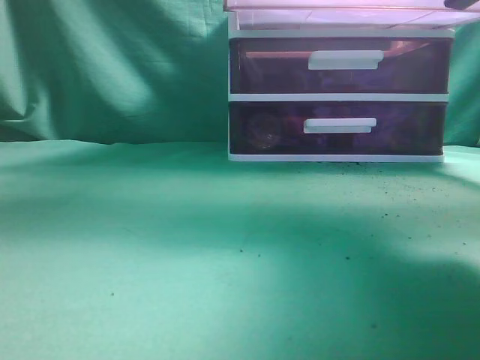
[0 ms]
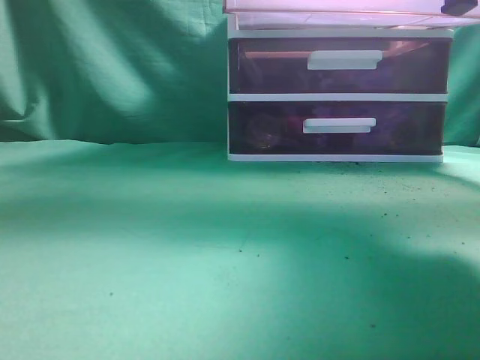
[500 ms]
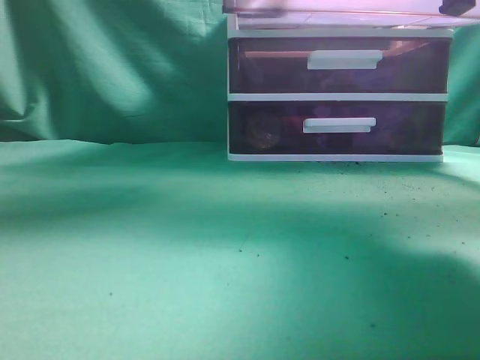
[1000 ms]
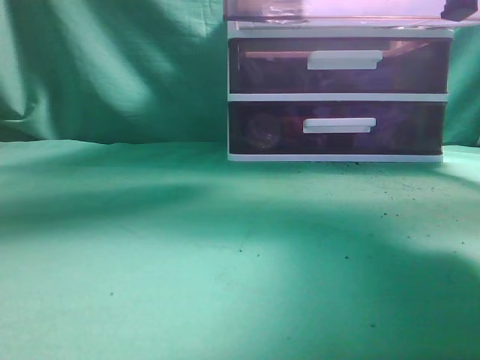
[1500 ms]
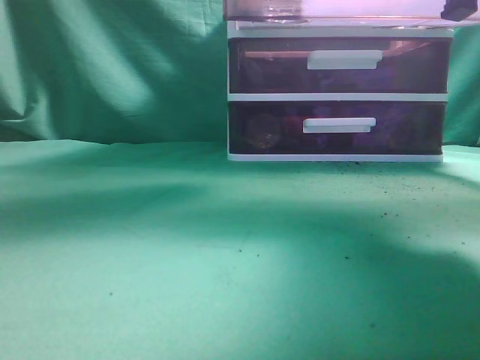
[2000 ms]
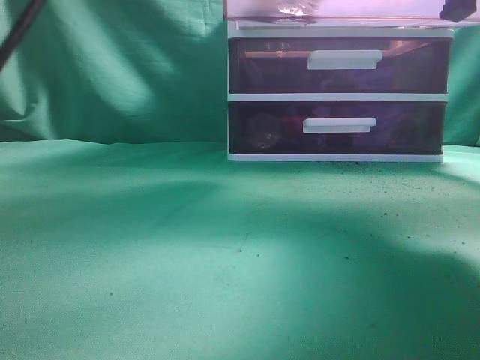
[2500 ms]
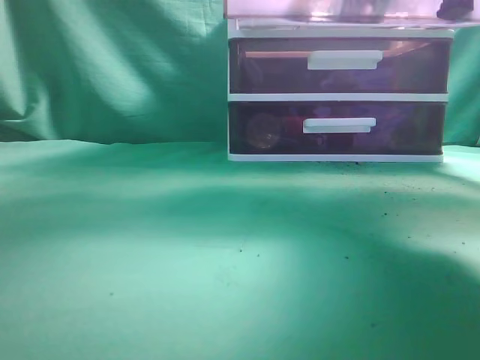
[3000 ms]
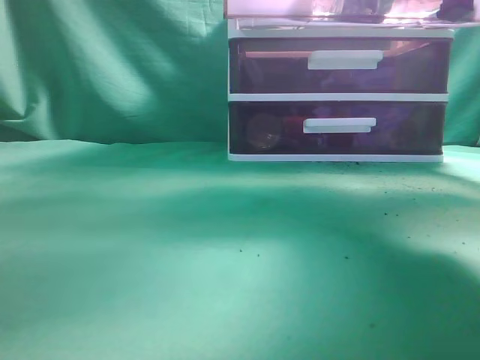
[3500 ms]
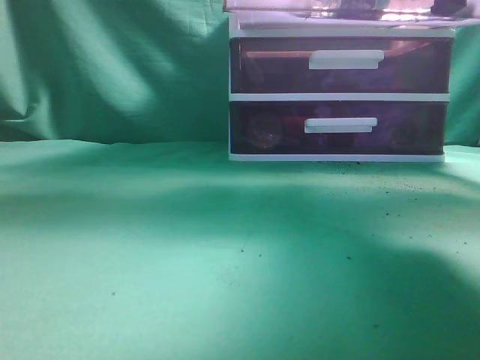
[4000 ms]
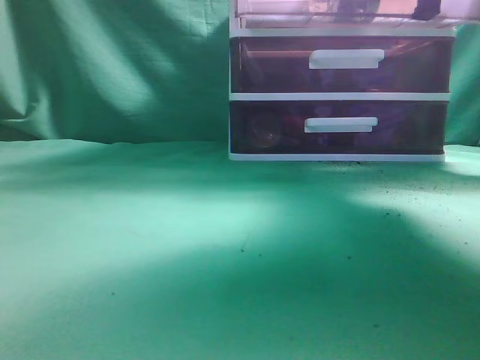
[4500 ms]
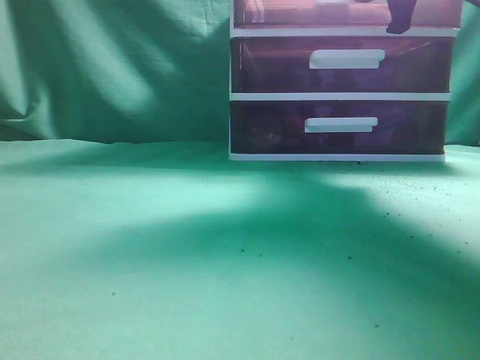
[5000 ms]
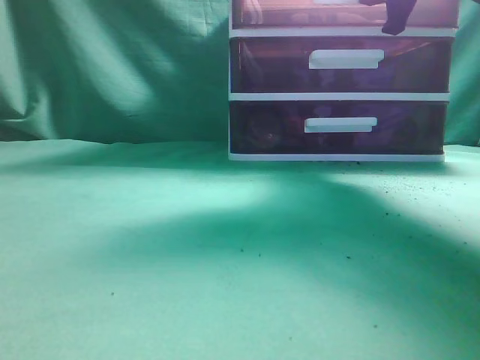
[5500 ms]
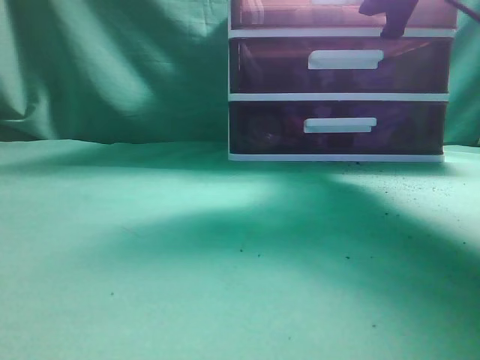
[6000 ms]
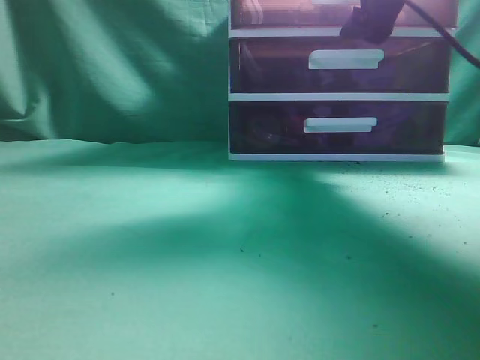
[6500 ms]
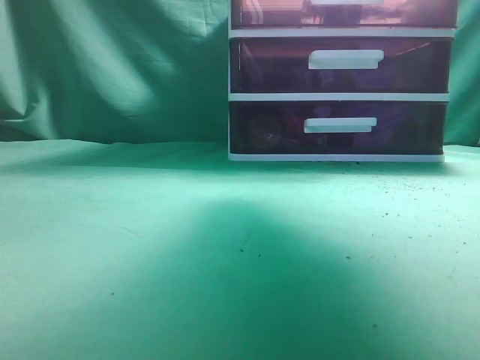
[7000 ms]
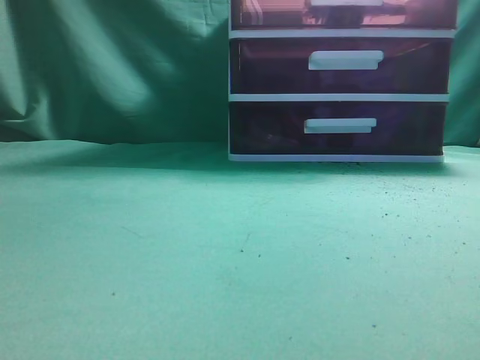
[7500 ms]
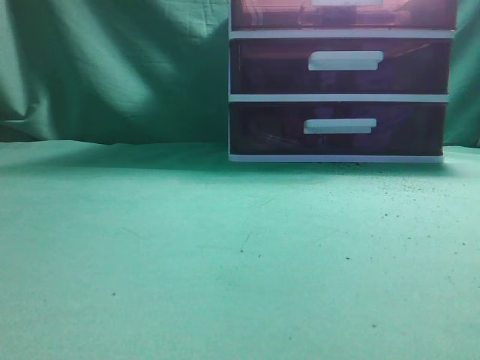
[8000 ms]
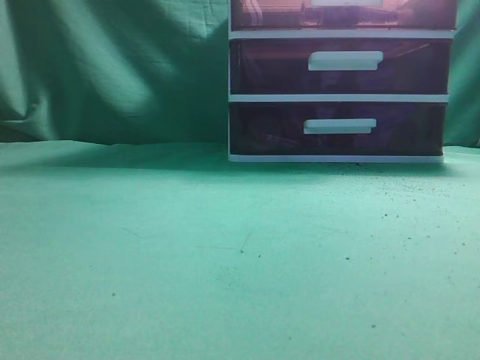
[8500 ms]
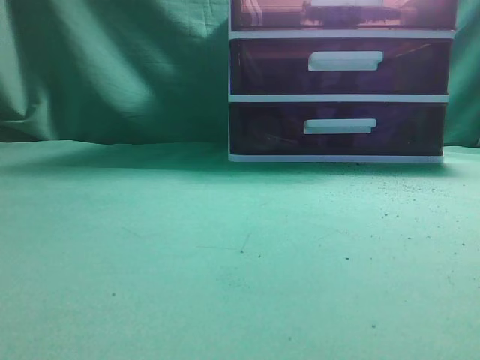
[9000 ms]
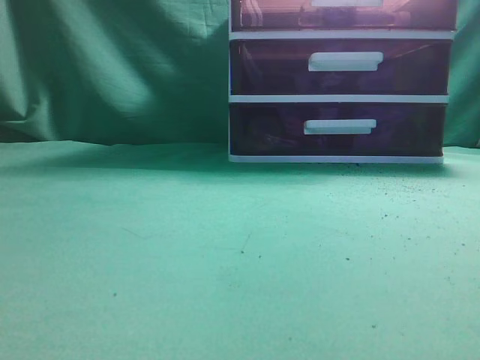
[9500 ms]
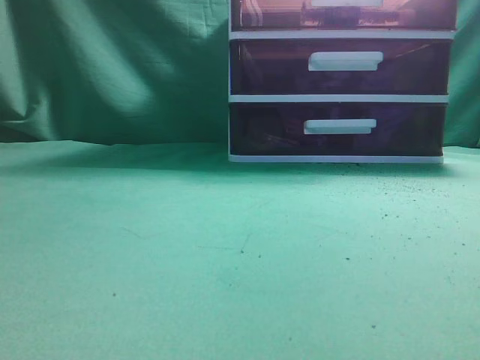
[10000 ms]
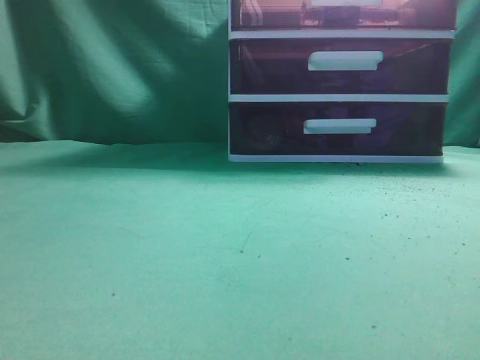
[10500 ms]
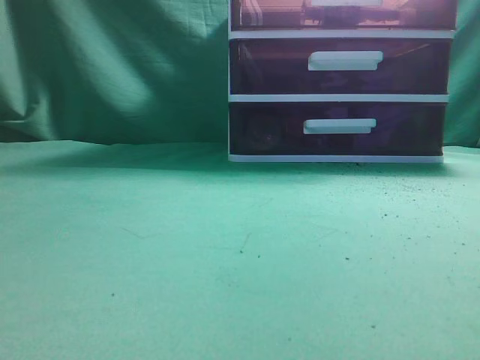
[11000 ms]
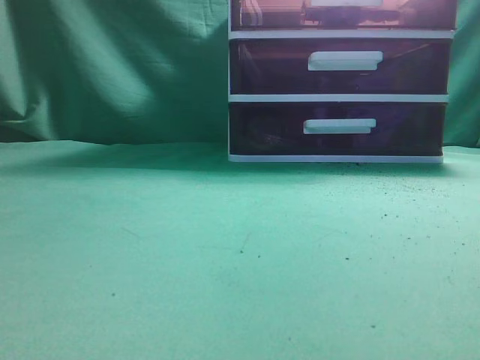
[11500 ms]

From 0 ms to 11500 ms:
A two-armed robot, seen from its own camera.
Task of the whole recording: place the water bottle into the drawer.
Step, from 0 ms to 3000 ms: Place the water bottle inside the drawer.
Step, from 3500 ms to 6000 ms: Close the drawer.
From 0 ms to 2000 ms: The left gripper is displaced forward and to the right by approximately 20 cm, and opens.
From 2000 ms to 4000 ms: The left gripper travels to the right and back again, about 10 cm each way, and closes its fingers.
From 4000 ms to 6000 ms: The right gripper moves forward, approximately 15 cm.
From 6000 ms to 7500 ms: The right gripper moves backward and upward, roughly 20 cm, and closes; the left gripper is displaced upward by about 5 cm.
From 7500 ms to 9500 ms: The left gripper shifts roughly 40 cm backward, downward and to the left. Meanwhile the right gripper shifts some 20 cm backward.
